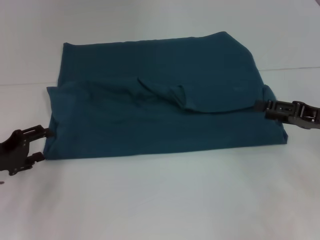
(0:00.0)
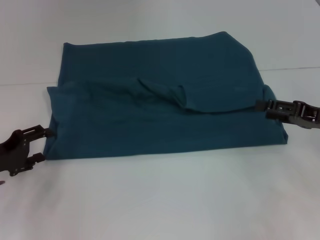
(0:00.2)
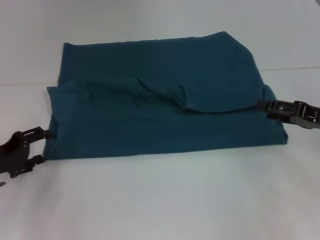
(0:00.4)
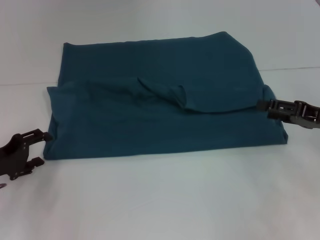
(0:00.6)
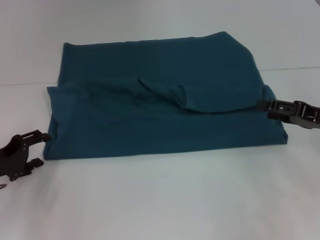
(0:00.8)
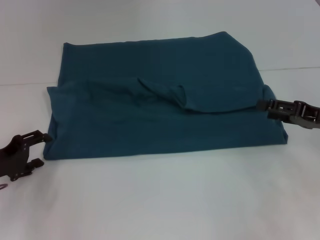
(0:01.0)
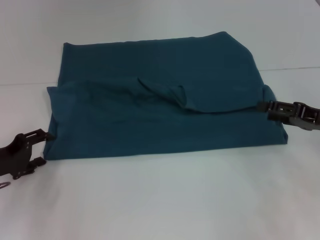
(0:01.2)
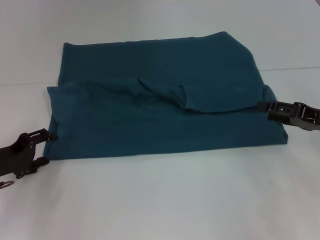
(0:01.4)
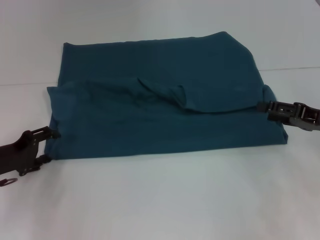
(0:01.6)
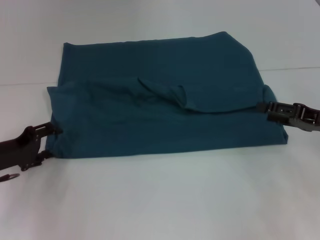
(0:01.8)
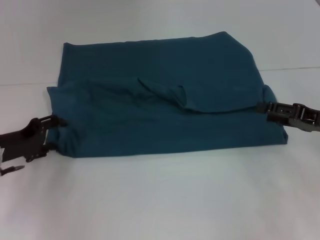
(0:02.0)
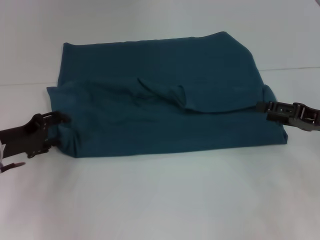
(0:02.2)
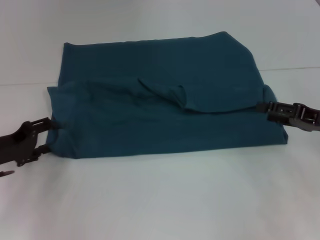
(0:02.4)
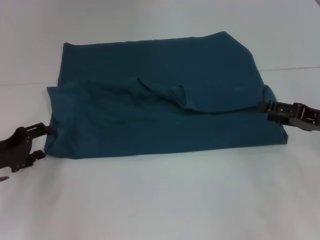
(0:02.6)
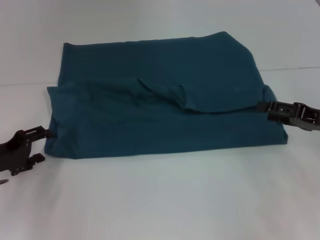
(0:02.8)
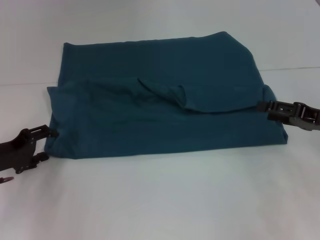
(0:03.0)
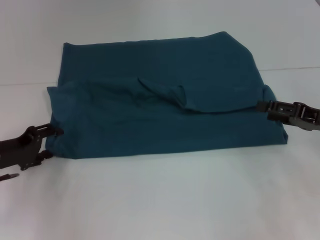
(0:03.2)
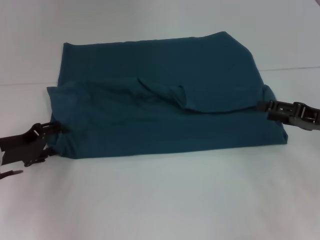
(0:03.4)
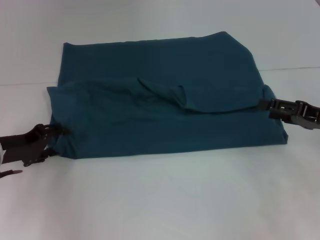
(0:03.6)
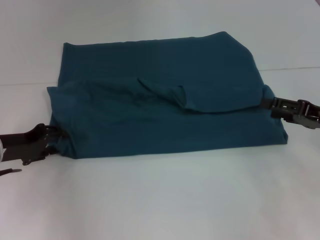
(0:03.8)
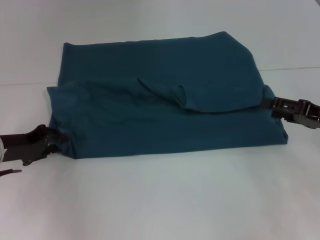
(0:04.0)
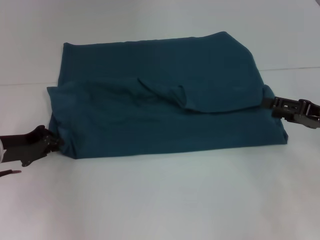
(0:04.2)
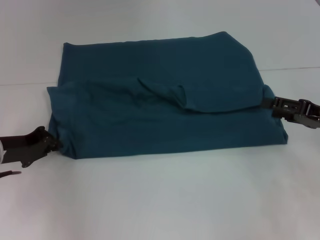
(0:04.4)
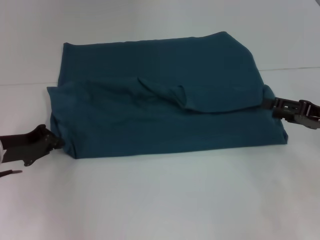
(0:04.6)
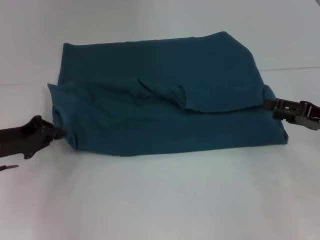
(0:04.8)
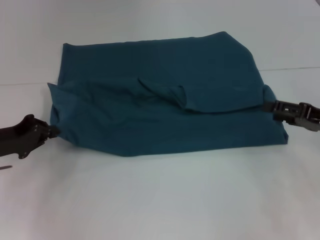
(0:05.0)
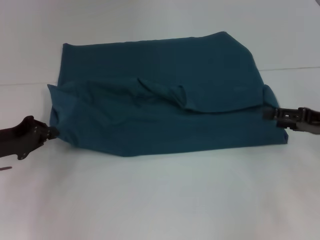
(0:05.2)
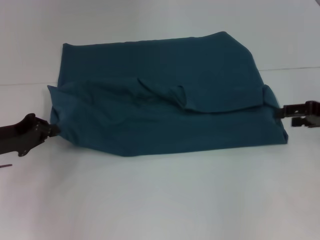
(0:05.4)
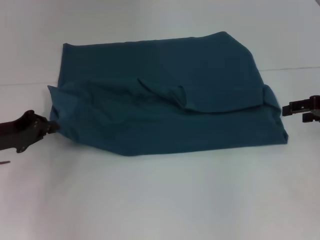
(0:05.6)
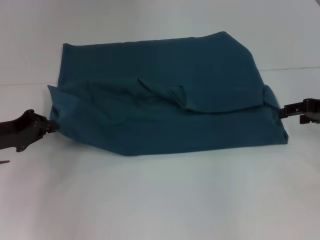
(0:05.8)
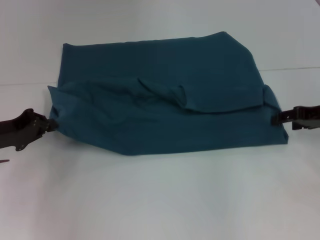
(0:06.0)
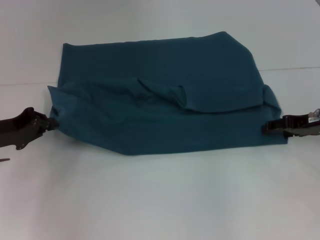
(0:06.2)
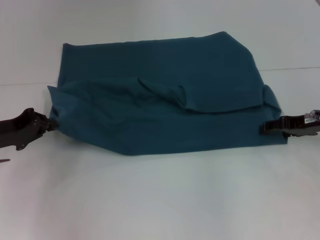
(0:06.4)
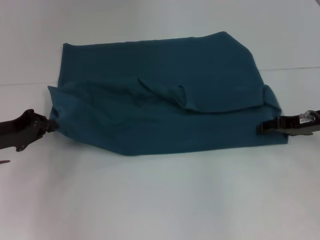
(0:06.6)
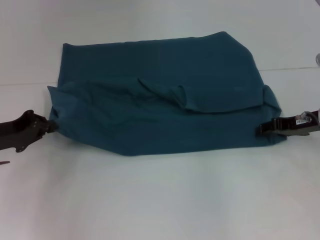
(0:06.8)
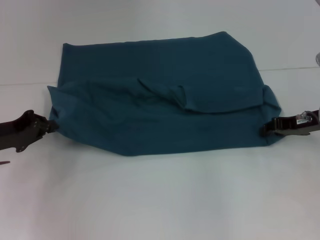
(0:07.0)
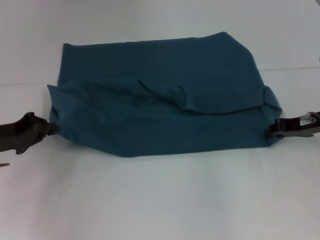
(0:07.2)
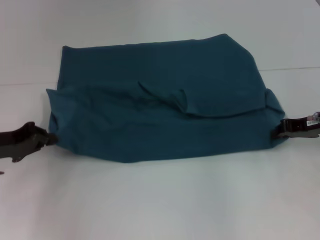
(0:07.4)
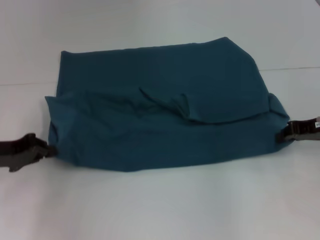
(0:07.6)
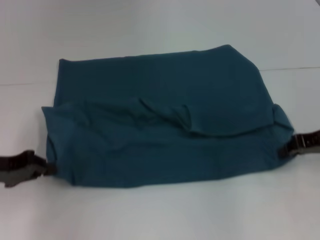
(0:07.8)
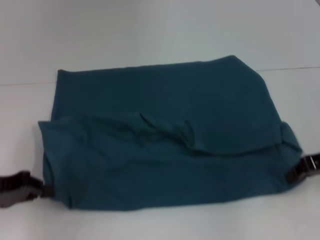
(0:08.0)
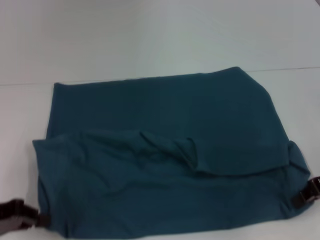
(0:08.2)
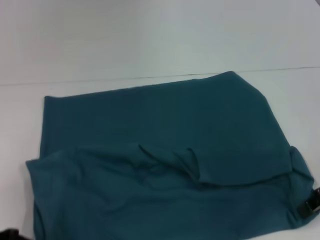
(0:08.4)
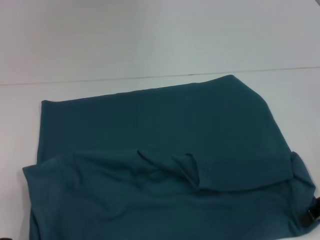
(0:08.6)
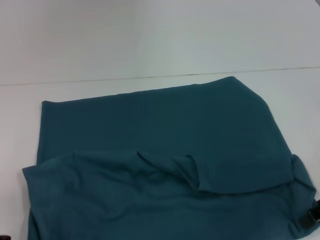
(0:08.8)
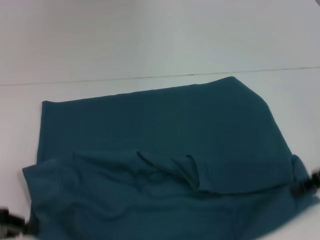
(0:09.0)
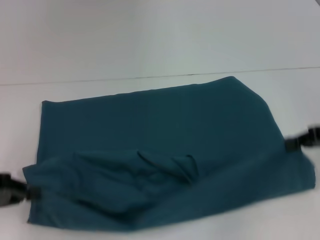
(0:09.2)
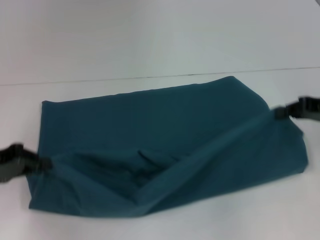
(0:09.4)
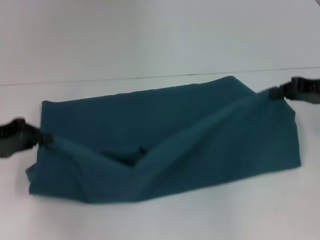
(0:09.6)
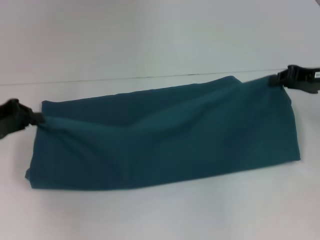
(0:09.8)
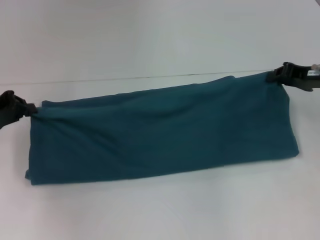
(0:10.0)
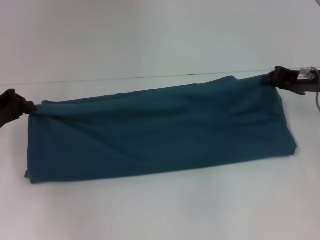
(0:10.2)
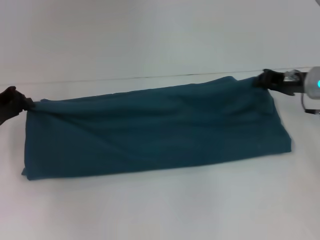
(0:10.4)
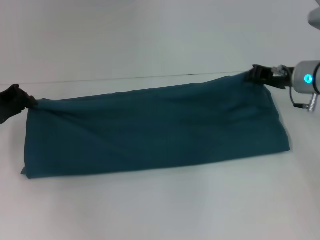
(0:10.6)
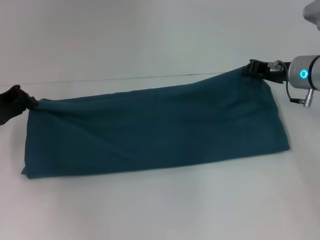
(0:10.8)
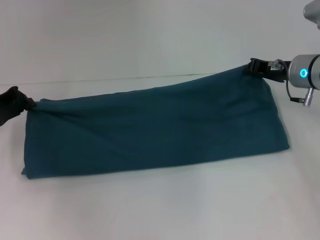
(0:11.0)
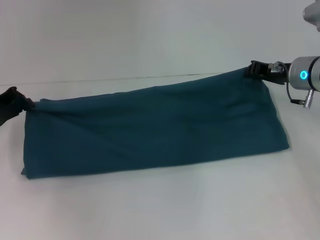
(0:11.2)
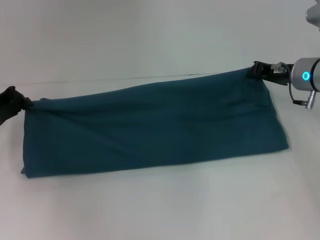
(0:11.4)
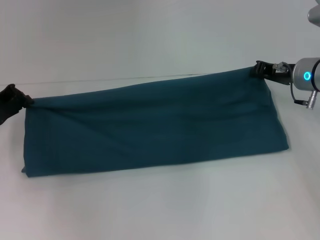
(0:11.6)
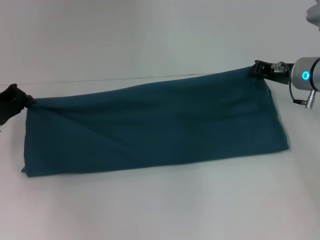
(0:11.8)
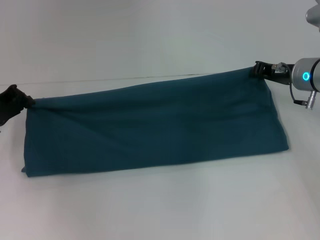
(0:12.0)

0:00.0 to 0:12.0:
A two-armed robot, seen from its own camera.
Step, 0:00.0 to 0:08.6: Pull the clothes with your left hand.
Step, 0:00.0 to 0:08.6: Pull the clothes with your right hand.
0:00.0 to 0:03.0: The grippers move only a little.
0:03.0 to 0:04.4: The left gripper closes its fingers.
0:04.4 to 0:06.0: The right gripper moves forward, some 5 cm.
0:06.0 to 0:07.6: The right gripper closes.
0:07.6 to 0:09.0: The two grippers go approximately 5 cm backward.
0:09.0 to 0:10.4: The left gripper shifts some 15 cm forward; the right gripper goes roughly 15 cm forward and to the left.
0:10.4 to 0:12.0: There are only small adjustments of the grippers.

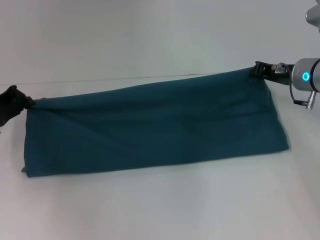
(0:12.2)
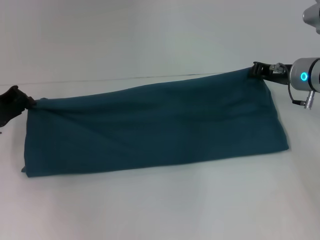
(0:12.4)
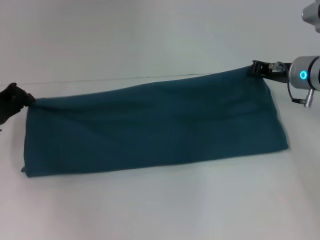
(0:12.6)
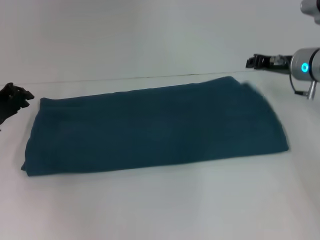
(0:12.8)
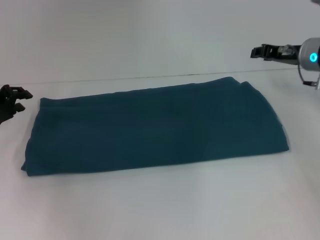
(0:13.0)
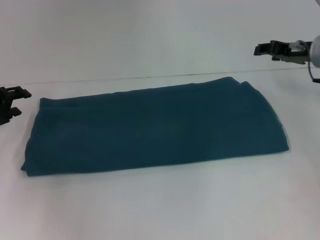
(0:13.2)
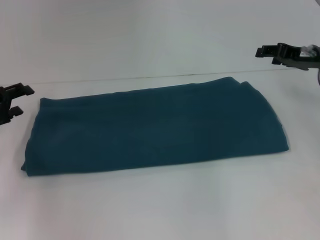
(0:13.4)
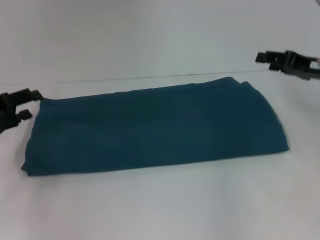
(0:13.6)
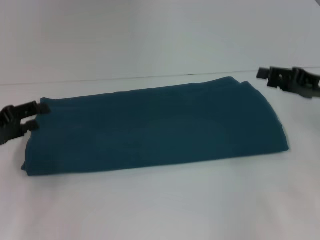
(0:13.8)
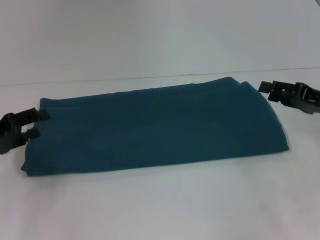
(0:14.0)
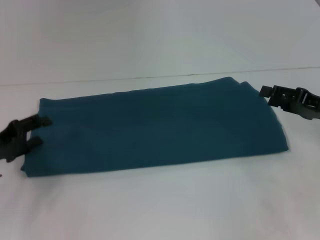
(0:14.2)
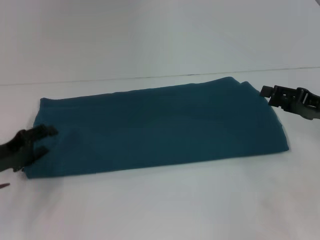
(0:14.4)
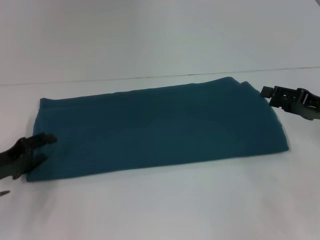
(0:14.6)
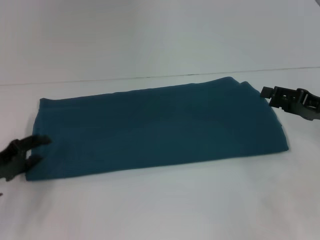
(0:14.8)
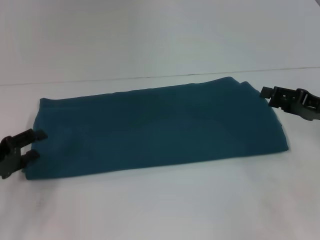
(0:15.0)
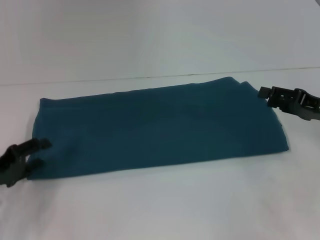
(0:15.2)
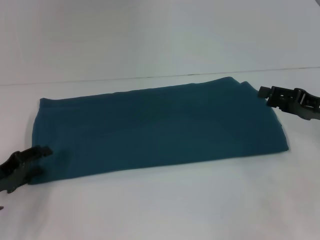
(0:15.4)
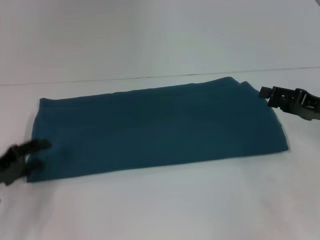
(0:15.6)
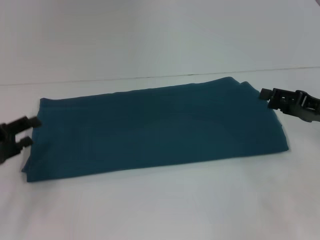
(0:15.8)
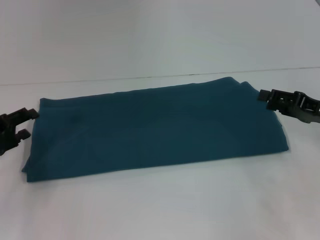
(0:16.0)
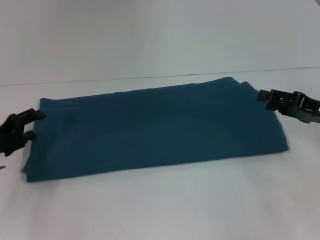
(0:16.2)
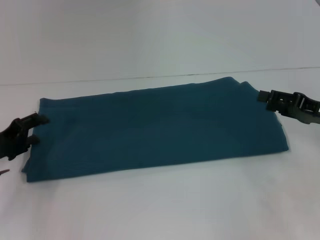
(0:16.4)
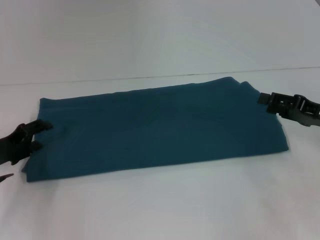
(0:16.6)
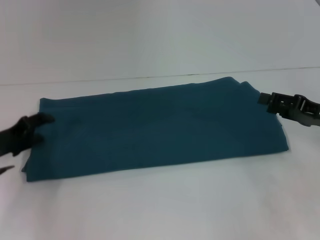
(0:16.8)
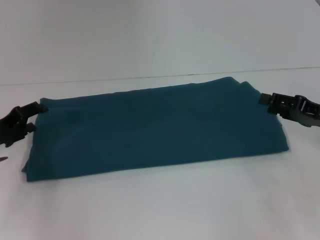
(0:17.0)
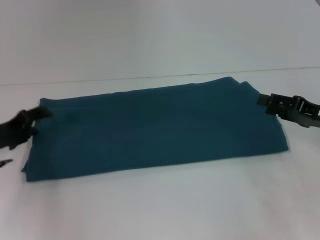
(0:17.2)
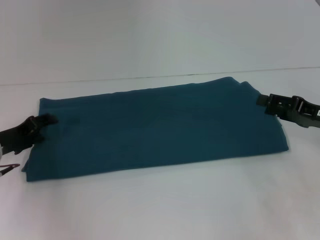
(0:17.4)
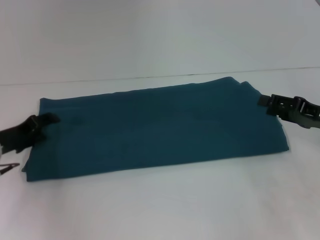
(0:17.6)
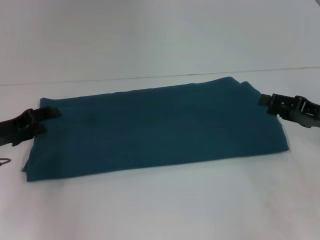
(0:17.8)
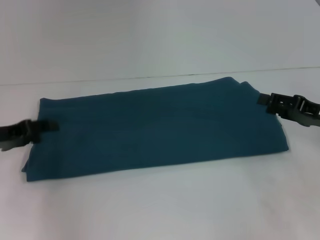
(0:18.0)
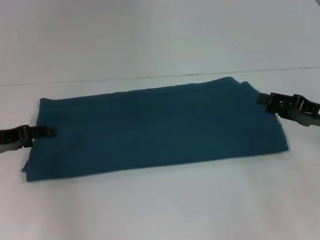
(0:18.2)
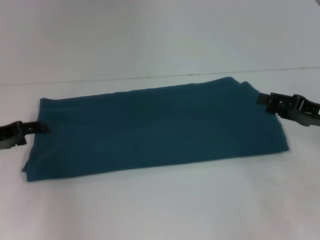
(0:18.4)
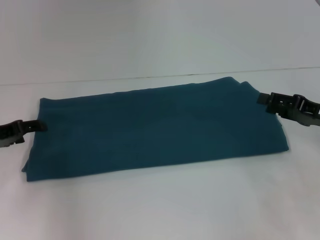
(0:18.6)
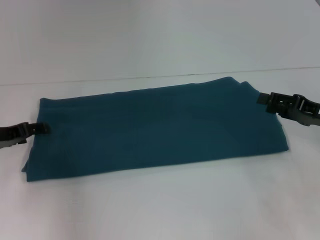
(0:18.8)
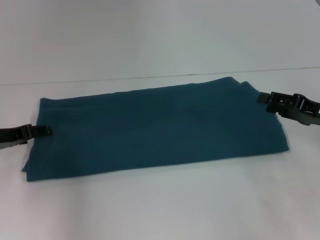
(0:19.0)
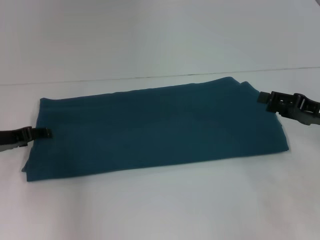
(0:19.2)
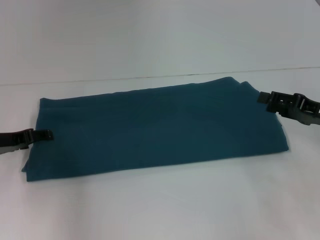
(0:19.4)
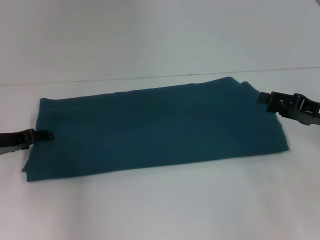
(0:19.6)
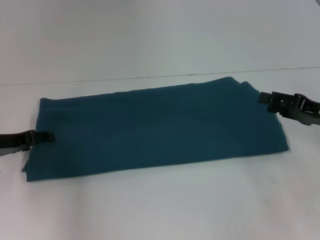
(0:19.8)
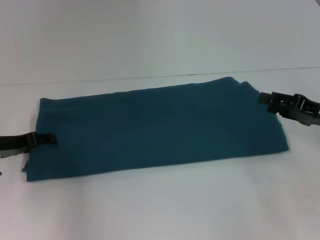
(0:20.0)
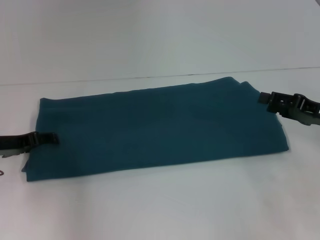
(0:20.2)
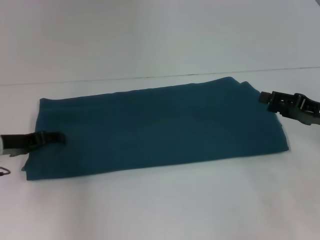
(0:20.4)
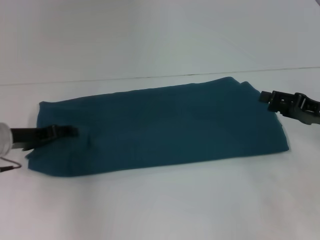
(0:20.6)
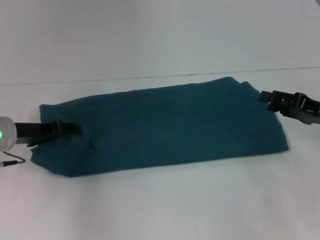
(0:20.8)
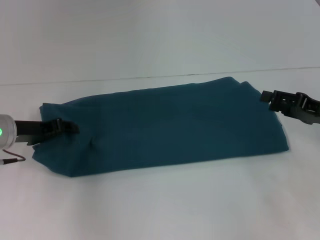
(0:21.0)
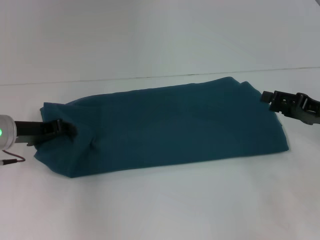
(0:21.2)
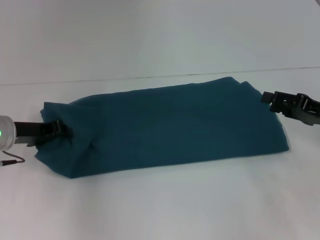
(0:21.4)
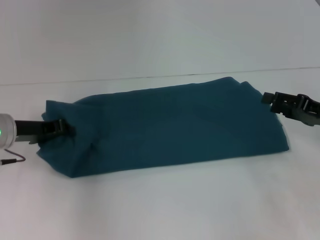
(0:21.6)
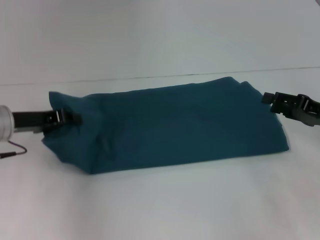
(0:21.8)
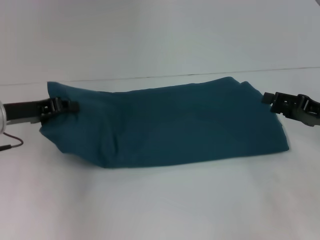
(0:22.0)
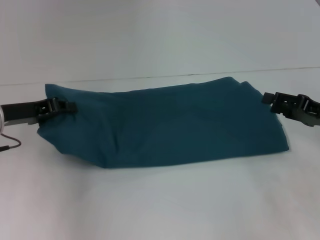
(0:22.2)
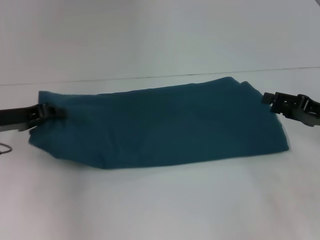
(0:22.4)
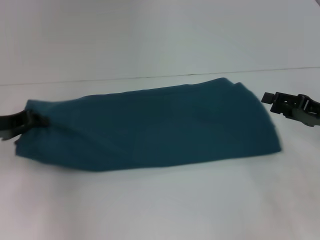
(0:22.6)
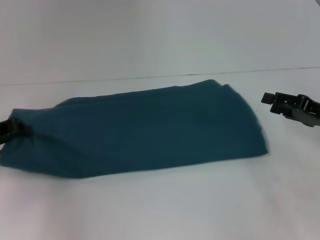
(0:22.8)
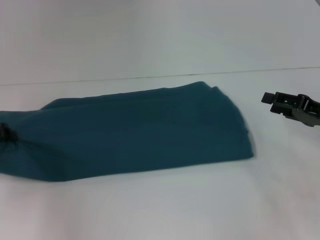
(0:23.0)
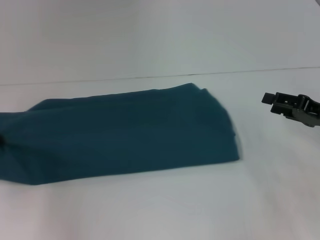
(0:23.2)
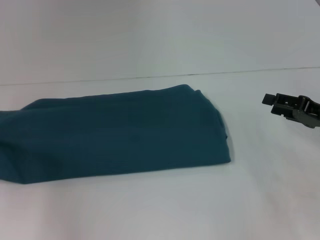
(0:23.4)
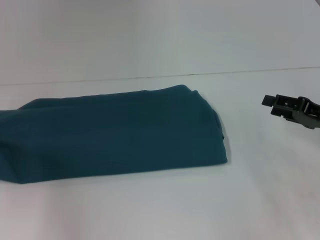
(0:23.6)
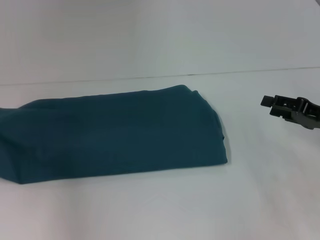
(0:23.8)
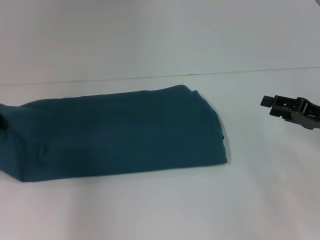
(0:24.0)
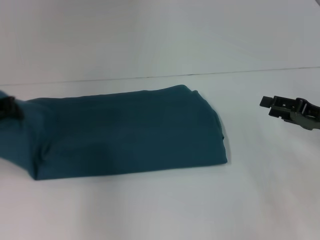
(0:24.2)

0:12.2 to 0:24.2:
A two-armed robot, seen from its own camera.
0:12.2 to 0:13.8: The right gripper travels backward and to the right by about 10 cm, and opens its fingers; the left gripper goes about 5 cm backward, and opens up.
0:13.8 to 0:15.2: The left gripper goes about 5 cm downward.
0:15.2 to 0:16.6: The left gripper heads forward, covering approximately 5 cm.
0:16.6 to 0:18.2: The left gripper travels upward by approximately 5 cm.
0:18.2 to 0:19.8: The grippers move only a little.
0:19.8 to 0:21.2: The left gripper closes.
0:21.2 to 0:22.6: The left gripper changes place by roughly 5 cm.
0:22.6 to 0:24.2: The left gripper goes roughly 5 cm upward.
